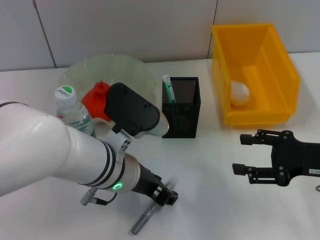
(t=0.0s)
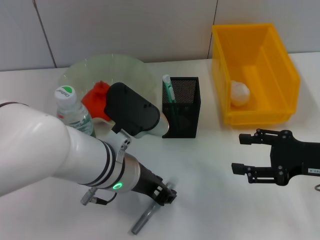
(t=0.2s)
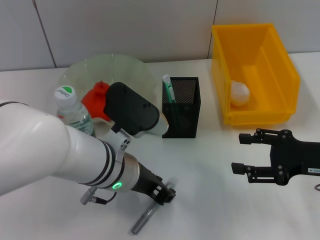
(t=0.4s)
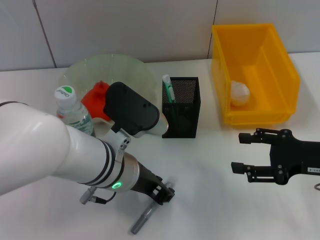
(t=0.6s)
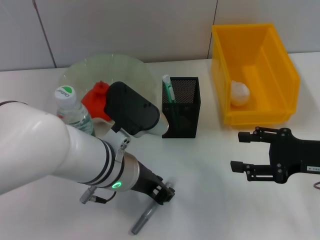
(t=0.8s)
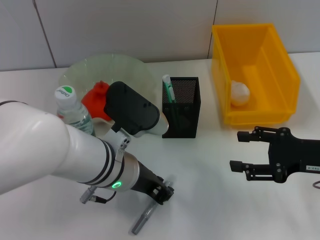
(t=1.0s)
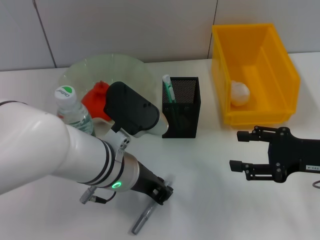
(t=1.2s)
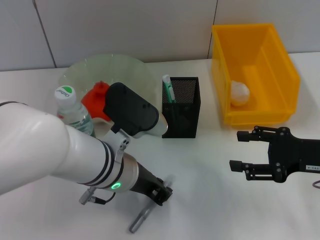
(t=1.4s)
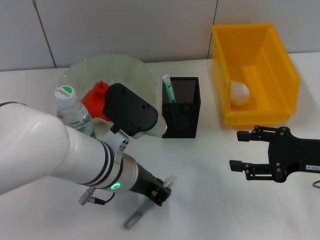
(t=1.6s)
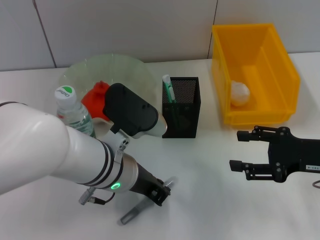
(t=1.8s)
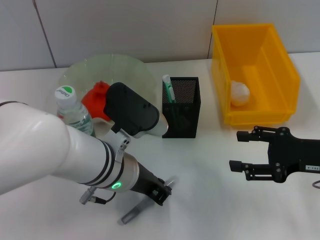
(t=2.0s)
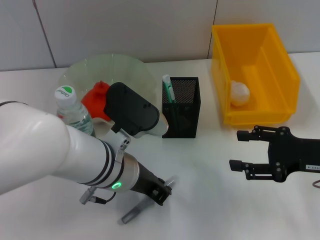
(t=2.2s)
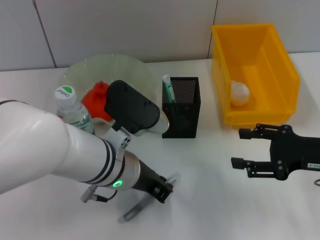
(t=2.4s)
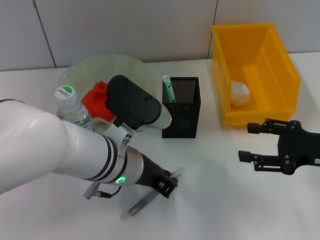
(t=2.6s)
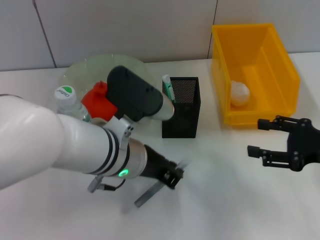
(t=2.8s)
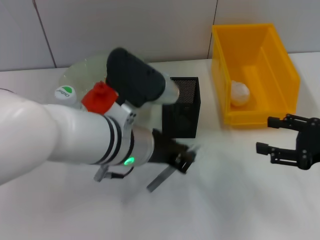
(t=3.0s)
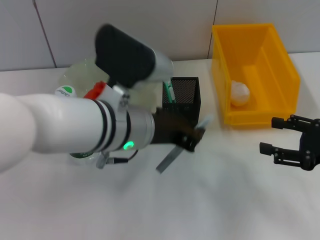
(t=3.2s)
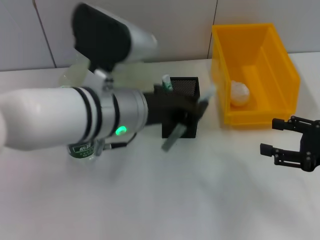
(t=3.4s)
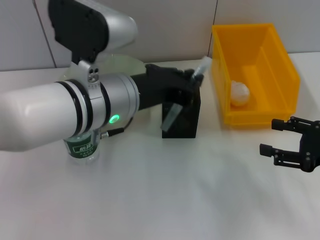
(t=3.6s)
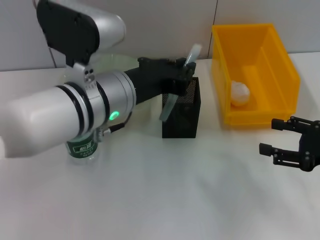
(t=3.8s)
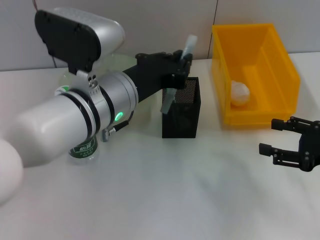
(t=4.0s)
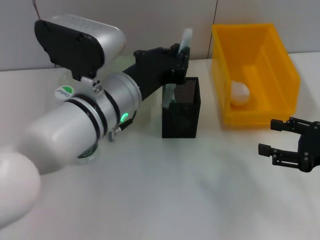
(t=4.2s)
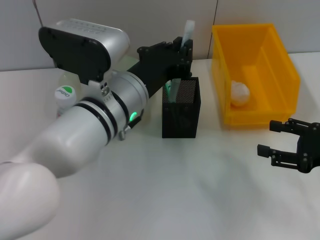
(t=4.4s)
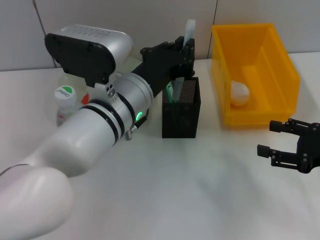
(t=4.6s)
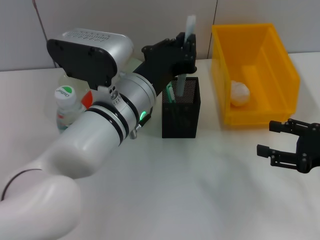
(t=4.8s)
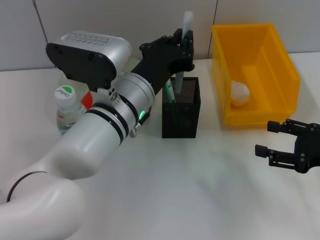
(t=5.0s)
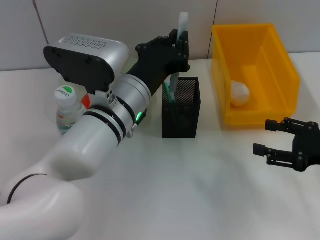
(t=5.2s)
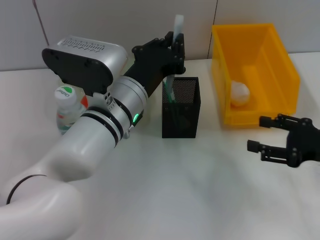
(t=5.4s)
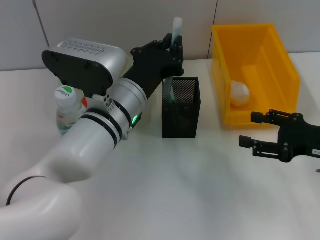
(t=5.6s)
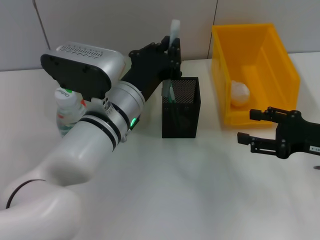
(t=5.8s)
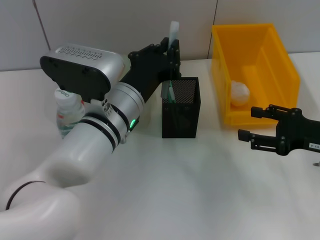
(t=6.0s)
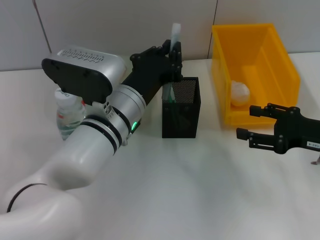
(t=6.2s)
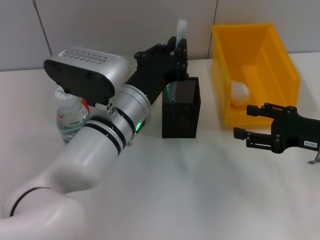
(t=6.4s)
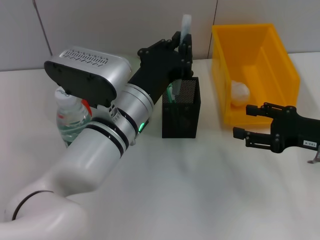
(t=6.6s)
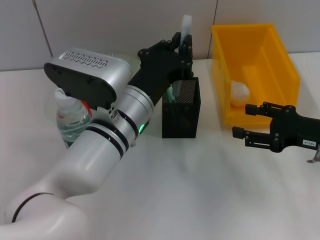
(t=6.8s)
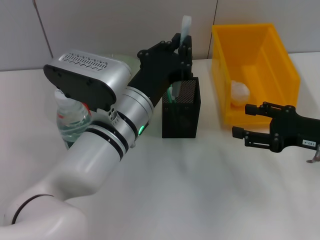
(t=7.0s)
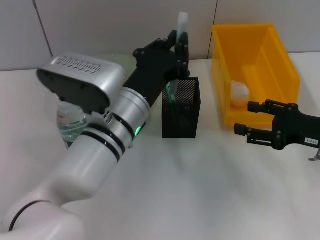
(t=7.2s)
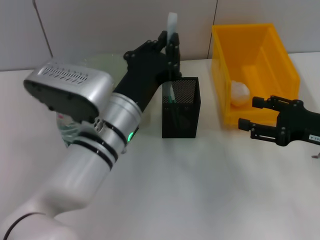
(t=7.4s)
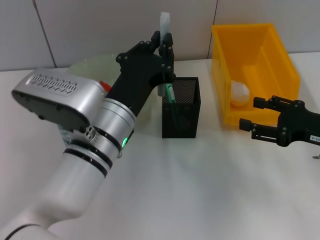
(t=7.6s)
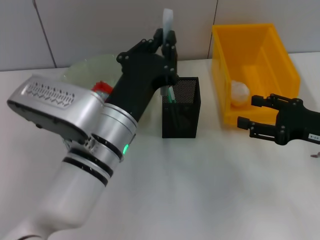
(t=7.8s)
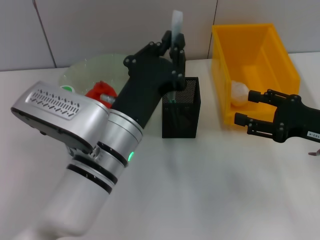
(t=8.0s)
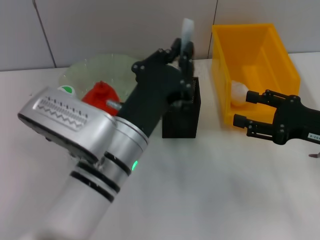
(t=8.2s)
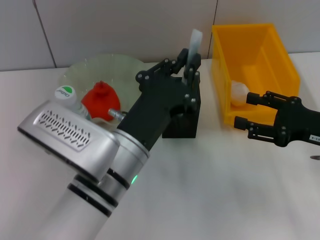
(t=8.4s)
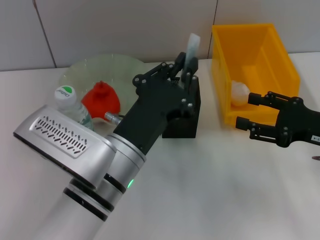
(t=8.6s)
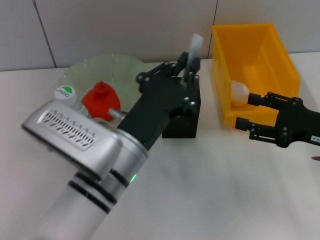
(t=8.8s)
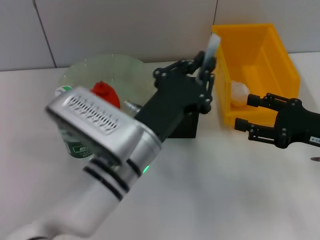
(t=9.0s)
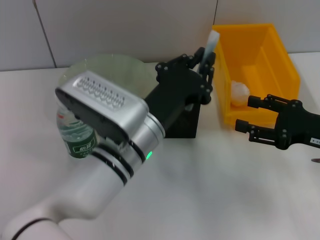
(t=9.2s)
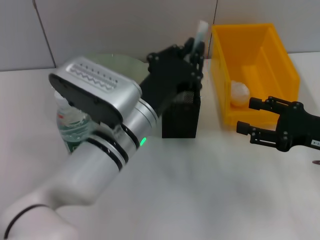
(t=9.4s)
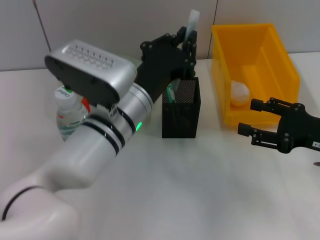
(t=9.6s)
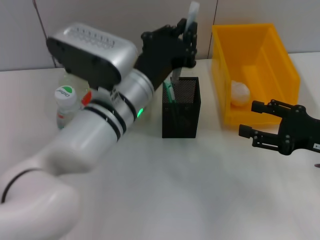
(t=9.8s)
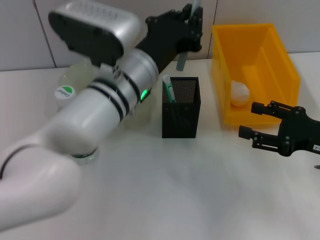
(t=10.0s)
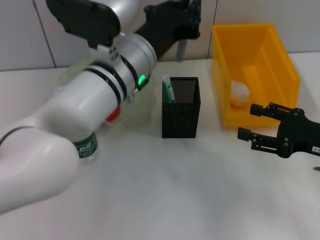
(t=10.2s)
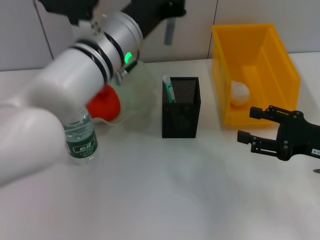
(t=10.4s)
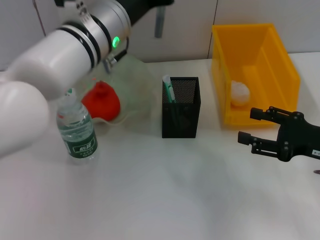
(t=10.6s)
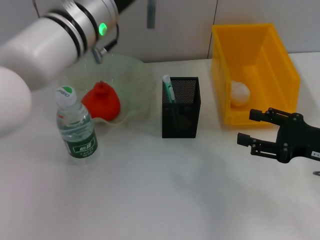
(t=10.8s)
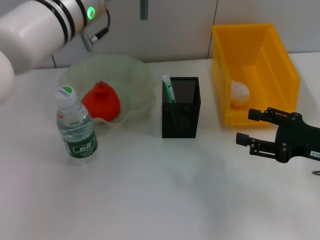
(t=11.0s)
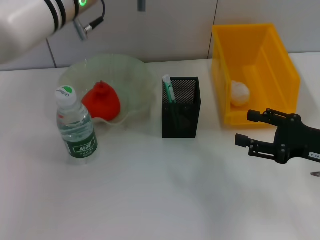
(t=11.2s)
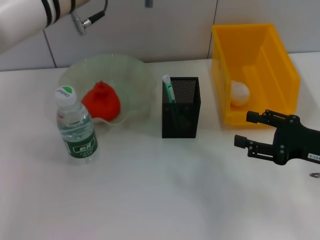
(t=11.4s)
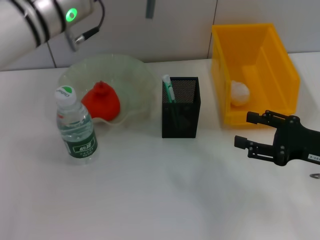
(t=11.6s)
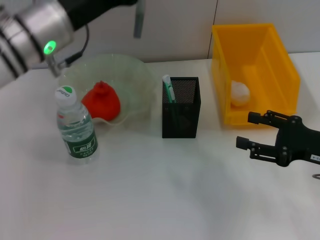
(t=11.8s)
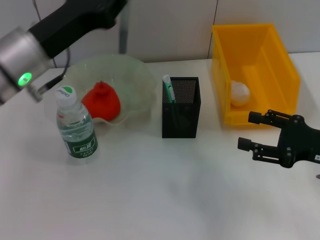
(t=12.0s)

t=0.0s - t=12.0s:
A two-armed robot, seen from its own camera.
Step, t=0.0s - t=2.0s: Grab the gray glue with the left hand.
t=0.0s - t=1.6s: The left gripper closes.
t=4.4s - t=7.6s: There are only small adjustments of the grippers.
t=9.0s - t=10.4s: The left gripper heads forward and upward, covering some 15 cm.
t=10.4s - t=12.0s: The left gripper is displaced to the left by some 10 cm.

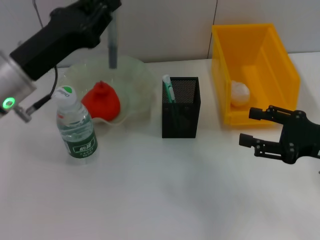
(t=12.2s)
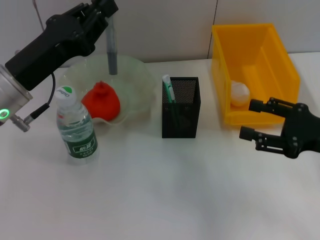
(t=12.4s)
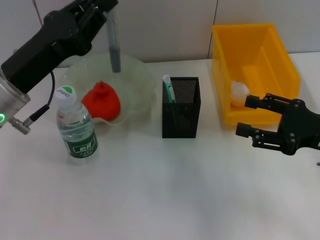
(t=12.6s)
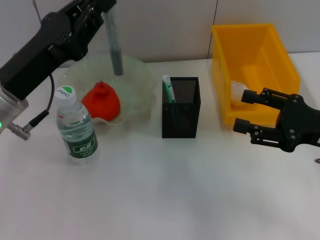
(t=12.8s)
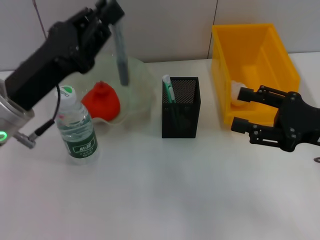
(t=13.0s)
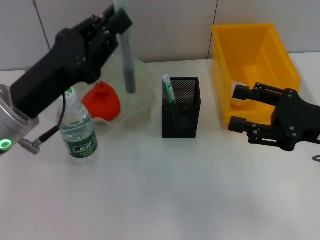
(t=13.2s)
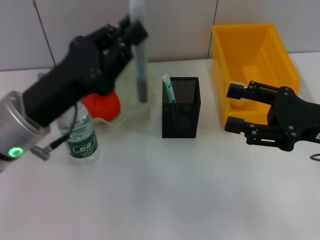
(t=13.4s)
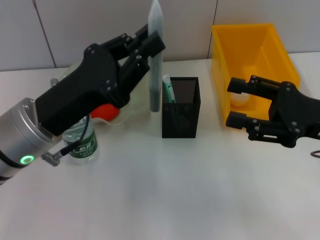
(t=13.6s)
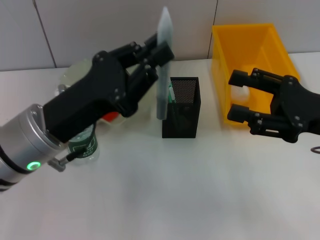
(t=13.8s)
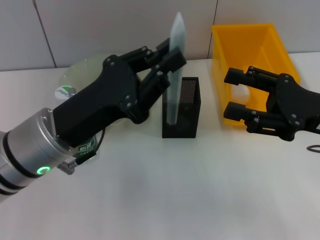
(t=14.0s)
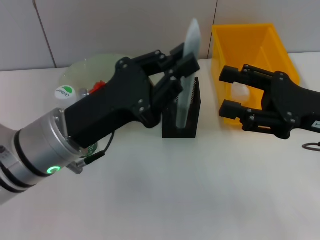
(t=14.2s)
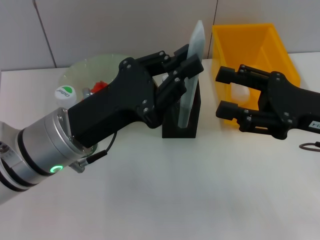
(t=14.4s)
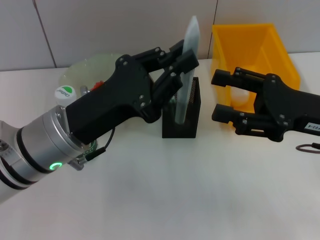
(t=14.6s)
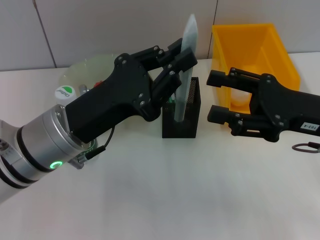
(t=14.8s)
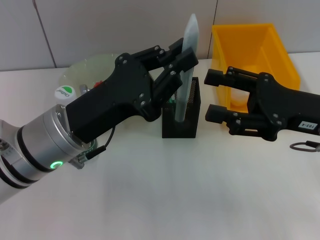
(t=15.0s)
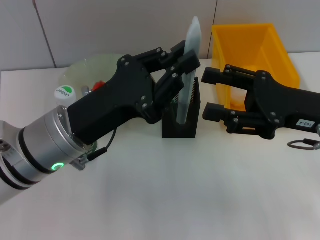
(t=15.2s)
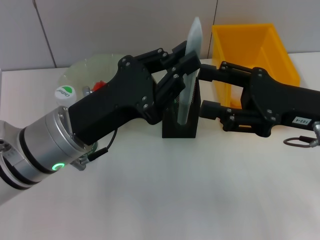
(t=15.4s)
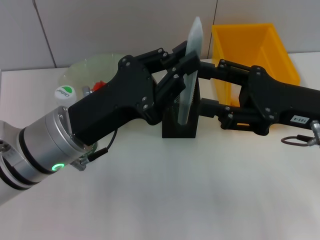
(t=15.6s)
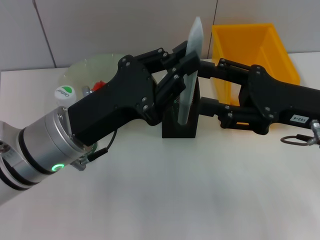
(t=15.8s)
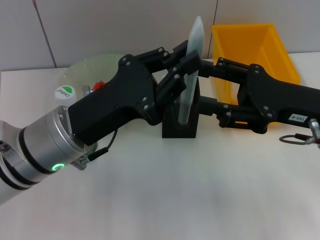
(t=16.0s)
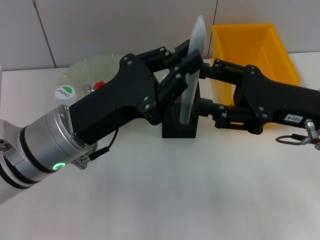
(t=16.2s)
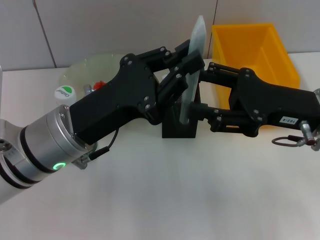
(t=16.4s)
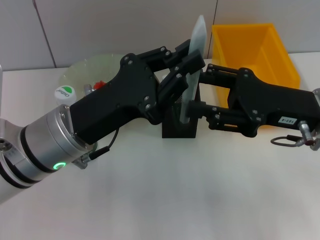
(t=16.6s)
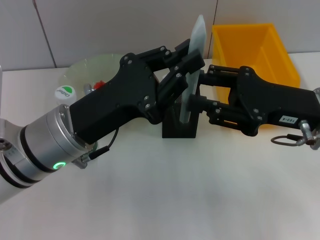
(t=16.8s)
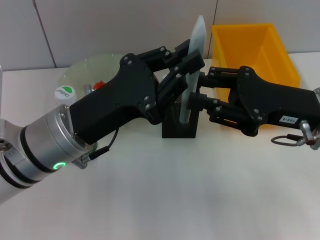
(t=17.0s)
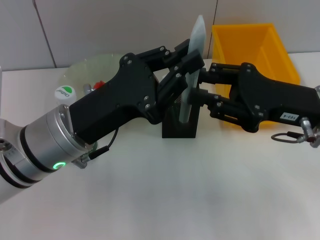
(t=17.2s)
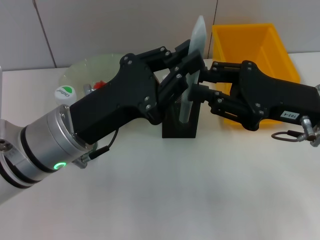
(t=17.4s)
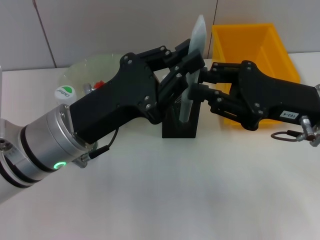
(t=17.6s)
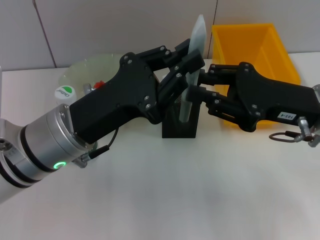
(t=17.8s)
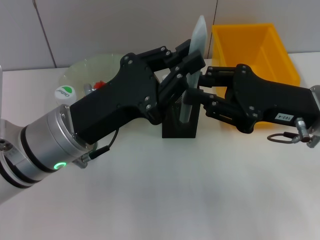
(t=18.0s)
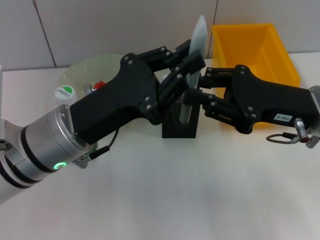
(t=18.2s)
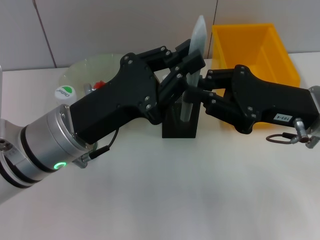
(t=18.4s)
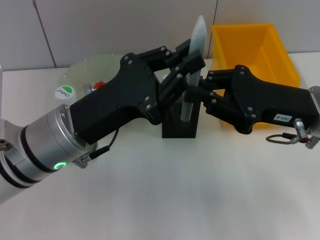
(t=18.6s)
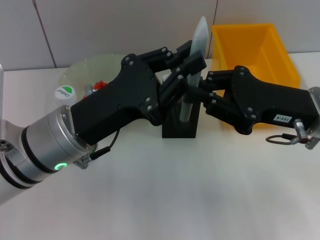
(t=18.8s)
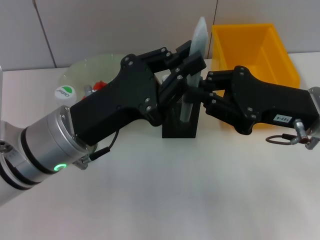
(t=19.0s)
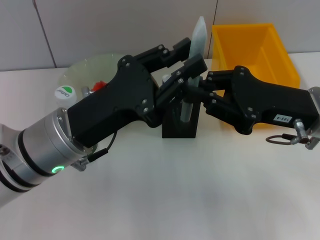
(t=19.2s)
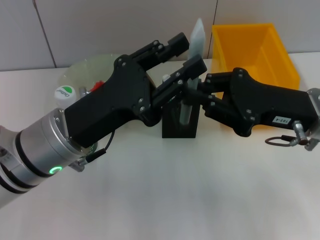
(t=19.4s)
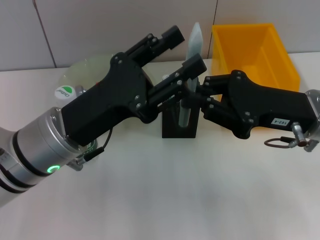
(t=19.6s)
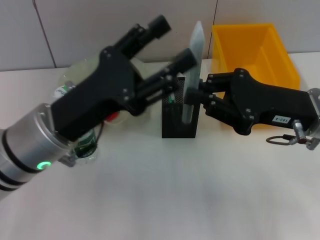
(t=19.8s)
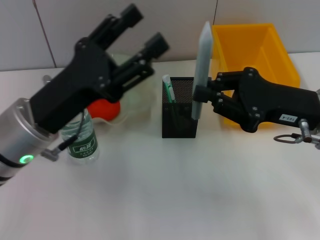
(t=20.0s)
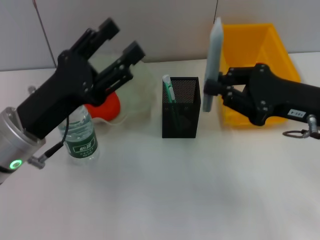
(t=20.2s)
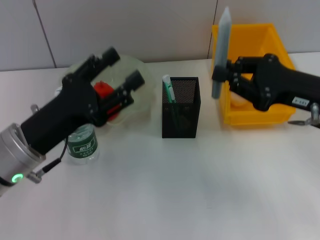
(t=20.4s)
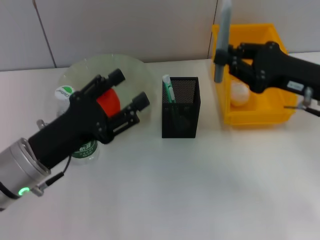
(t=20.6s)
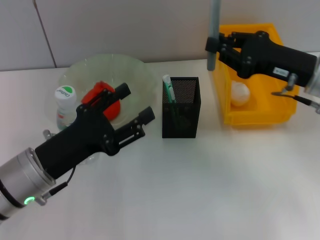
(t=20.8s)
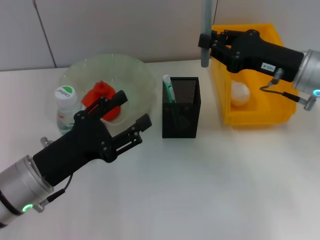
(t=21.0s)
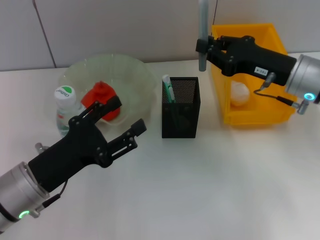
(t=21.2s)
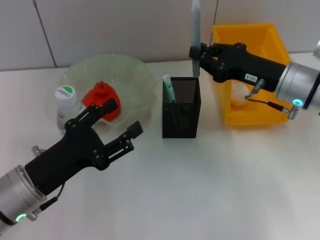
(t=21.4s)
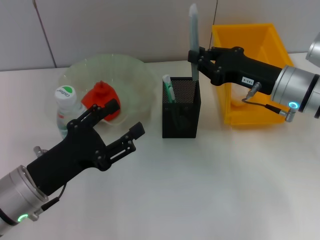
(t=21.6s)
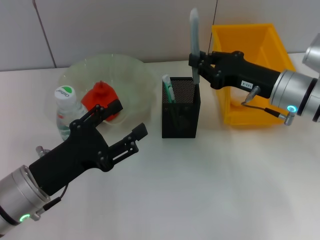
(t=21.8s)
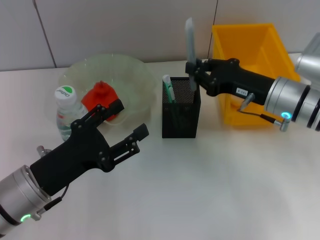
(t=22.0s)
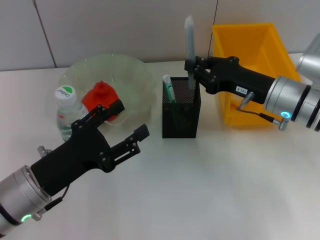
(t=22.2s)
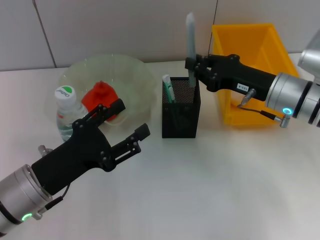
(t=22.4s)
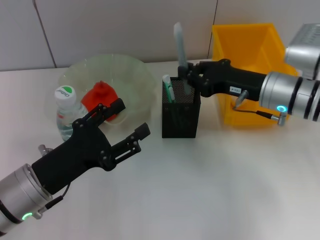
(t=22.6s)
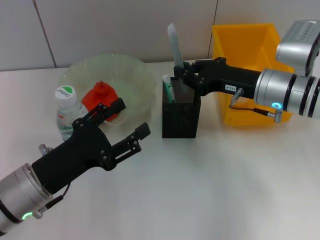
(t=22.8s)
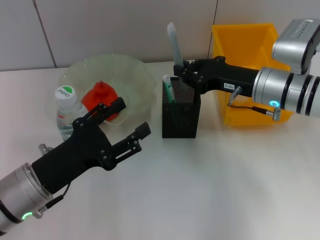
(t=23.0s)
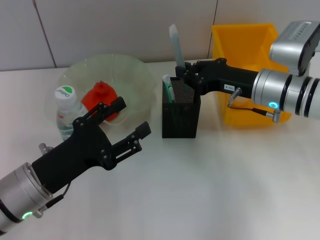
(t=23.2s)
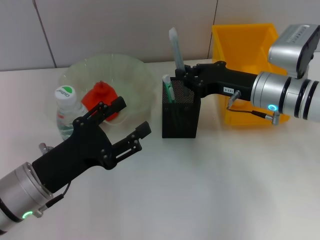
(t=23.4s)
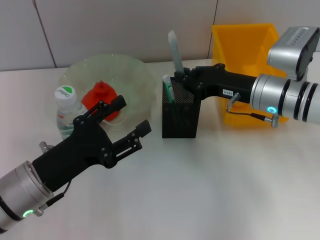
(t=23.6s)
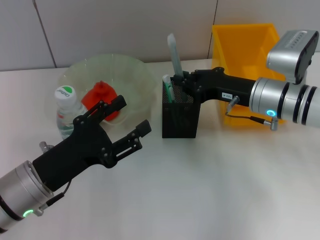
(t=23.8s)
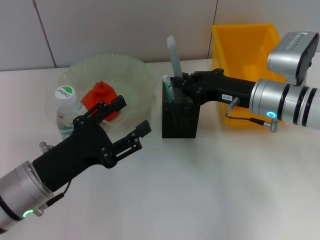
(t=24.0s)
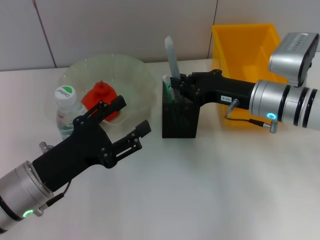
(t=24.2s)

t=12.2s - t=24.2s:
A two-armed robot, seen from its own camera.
Step, t=12.2s - t=20.0s: Pass the gray glue from the left hand to the right hand.
t=12.2s - t=13.8s: The right gripper changes place by about 5 cm. The left gripper goes approximately 5 cm backward.
t=13.8s - t=16.6s: The grippers make only small movements.
t=16.6s - t=18.2s: The right gripper closes its fingers.
t=18.2s - t=19.8s: The left gripper opens its fingers.
t=19.8s - t=21.2s: The right gripper goes about 5 cm forward. Meanwhile the left gripper moves downward and to the left, about 10 cm.
t=21.2s - t=24.2s: There are only small adjustments of the grippers.
